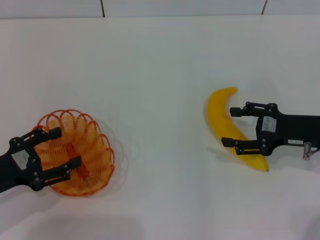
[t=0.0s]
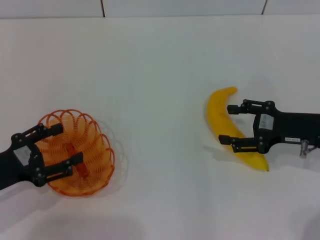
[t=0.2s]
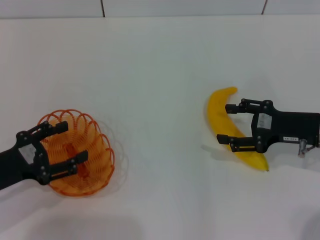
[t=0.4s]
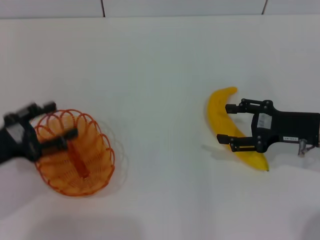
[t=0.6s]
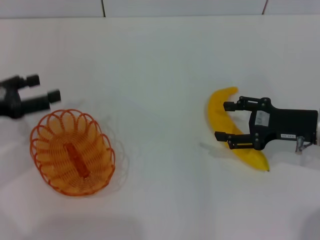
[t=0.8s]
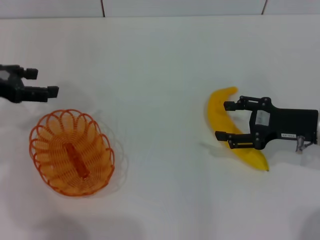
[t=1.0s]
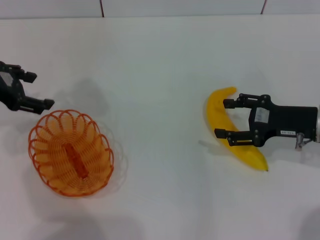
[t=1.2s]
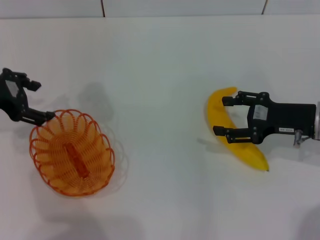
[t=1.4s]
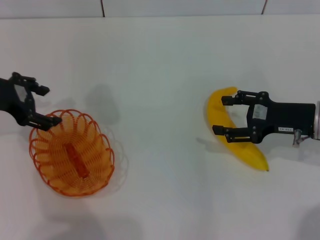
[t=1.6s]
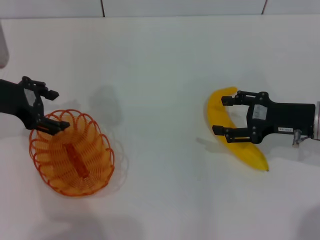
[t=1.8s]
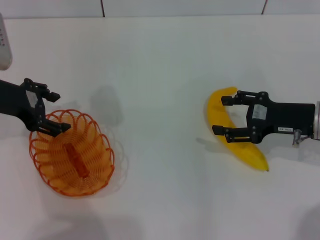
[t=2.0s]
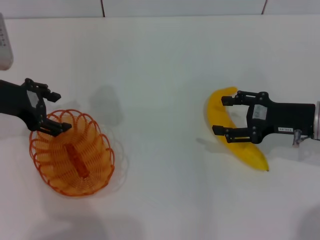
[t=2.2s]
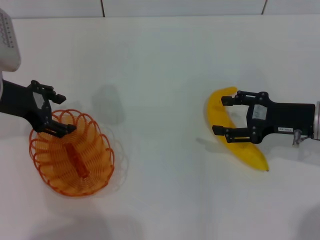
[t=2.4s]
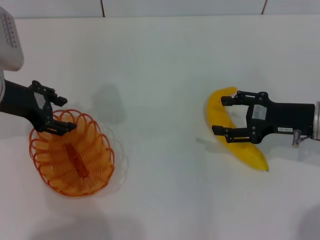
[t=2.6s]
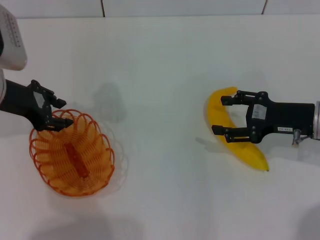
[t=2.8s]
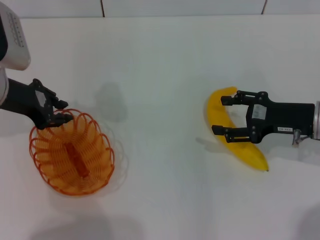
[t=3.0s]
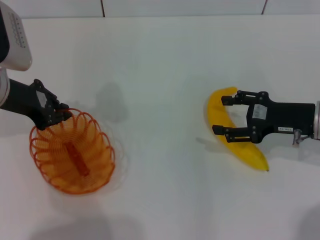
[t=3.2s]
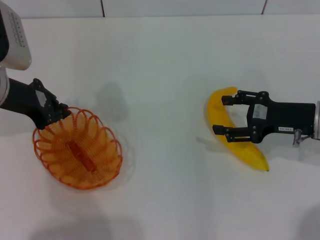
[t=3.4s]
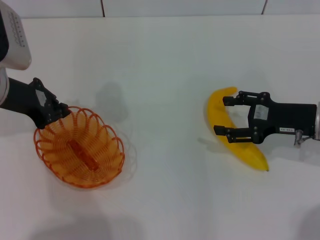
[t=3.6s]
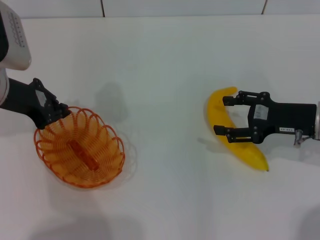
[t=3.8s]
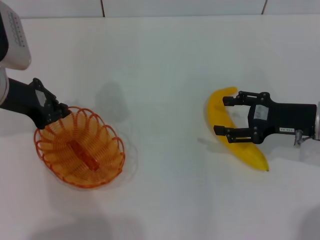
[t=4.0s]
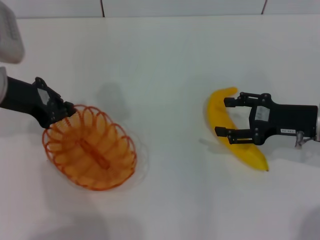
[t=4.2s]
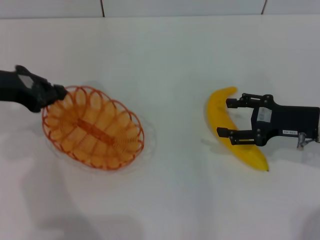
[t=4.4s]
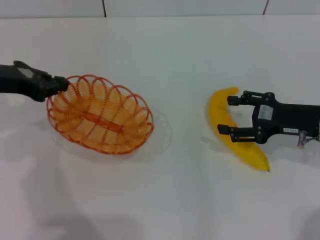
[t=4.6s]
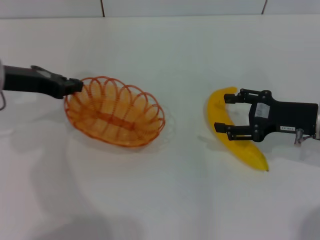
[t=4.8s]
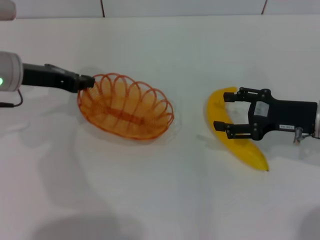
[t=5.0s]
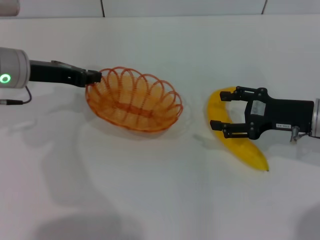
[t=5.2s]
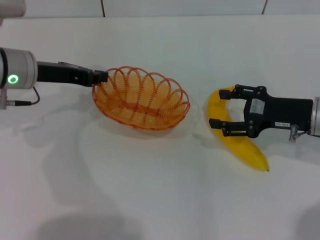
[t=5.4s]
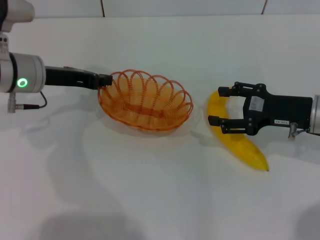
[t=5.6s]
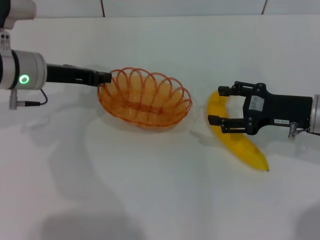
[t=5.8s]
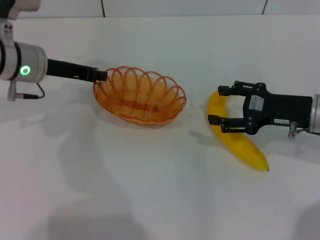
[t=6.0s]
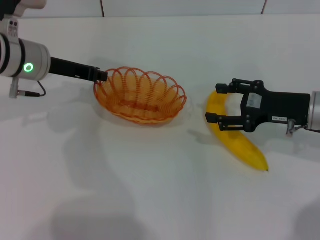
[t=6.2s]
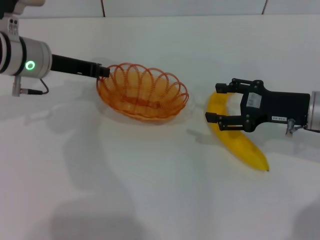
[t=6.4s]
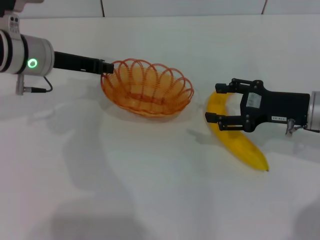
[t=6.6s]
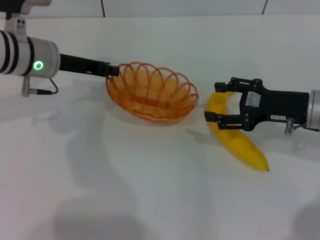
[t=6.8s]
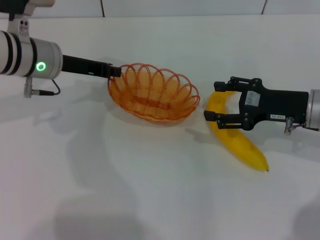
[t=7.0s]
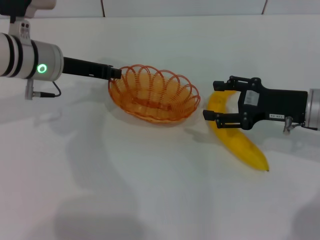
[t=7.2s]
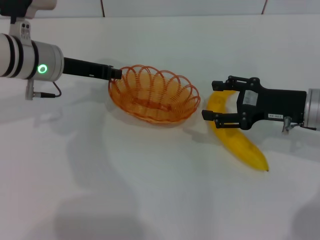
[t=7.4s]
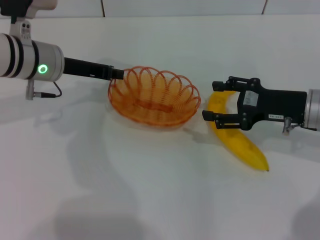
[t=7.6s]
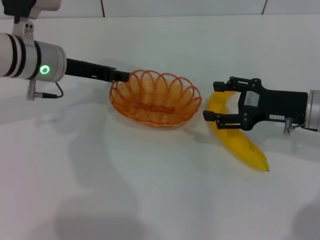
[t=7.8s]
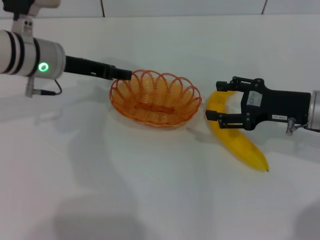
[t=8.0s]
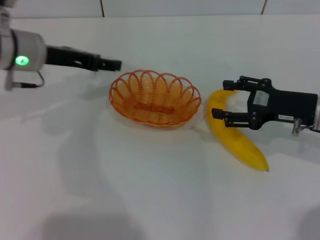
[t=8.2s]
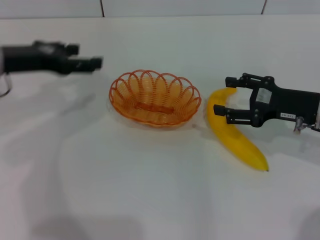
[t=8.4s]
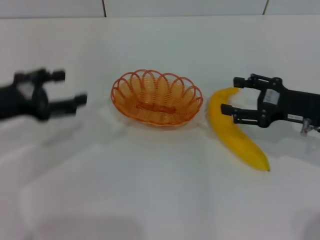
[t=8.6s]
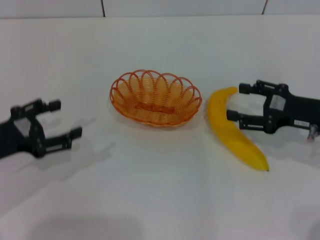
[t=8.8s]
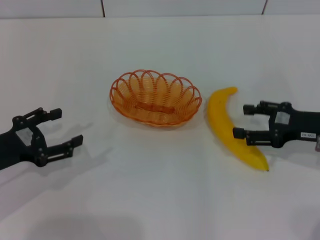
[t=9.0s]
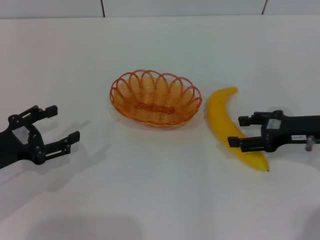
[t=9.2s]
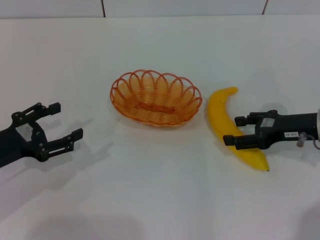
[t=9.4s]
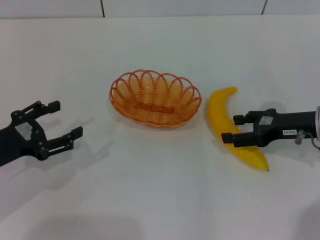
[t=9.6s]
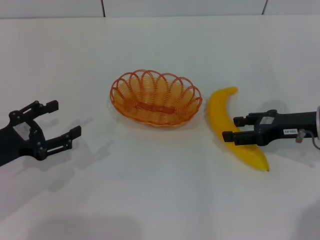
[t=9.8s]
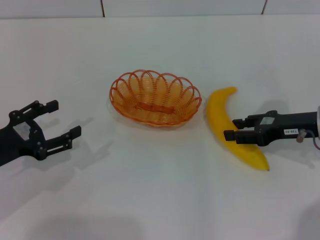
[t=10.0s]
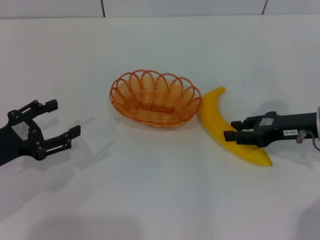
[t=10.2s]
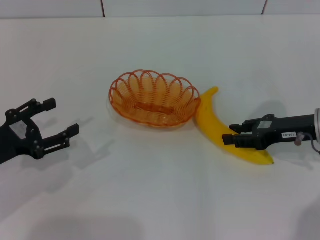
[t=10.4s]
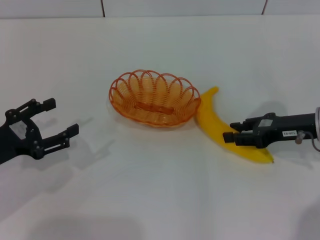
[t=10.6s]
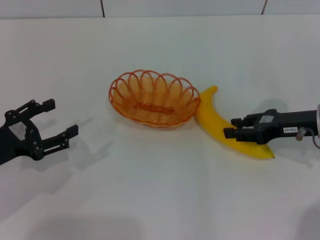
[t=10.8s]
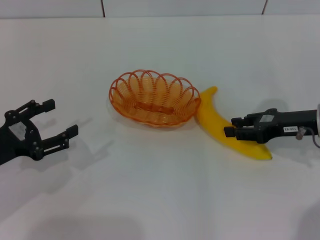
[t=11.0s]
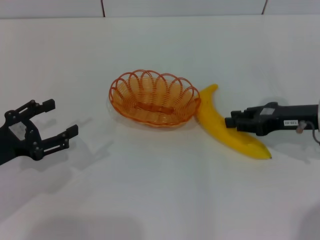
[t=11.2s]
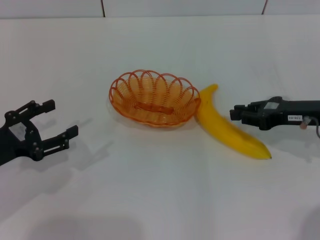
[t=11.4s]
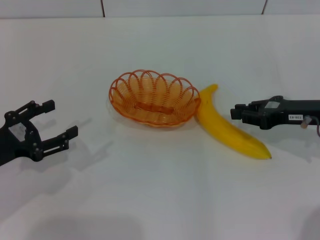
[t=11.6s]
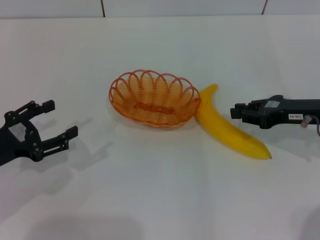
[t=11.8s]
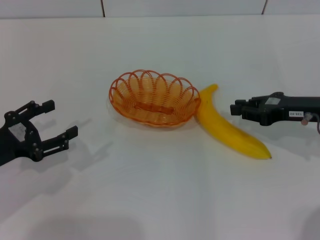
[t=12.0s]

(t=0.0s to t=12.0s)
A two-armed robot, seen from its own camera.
Step, t=0.0s - t=4.2s: Pick up the basket with the left gripper.
Step, t=4.4s - t=8.4s: Place the basket in the center of view with the left gripper.
t=0.0s - t=1.6s: The left gripper is displaced forward and upward by roughly 15 cm.
t=1.6s - t=3.0s: The left gripper closes.
t=3.0s - t=4.4s: The left gripper closes its fingers.
t=4.4s - t=6.0s: The left gripper heads to the right and forward, covering about 10 cm.
t=6.0s - t=7.6s: The grippers stay close to where they were, moving slightly.
t=7.6s - t=9.0s: The left gripper goes about 20 cm backward and to the left, and opens its fingers; the right gripper moves some 5 cm.
t=9.0s - t=10.4s: The right gripper closes up.
t=10.4s - t=12.0s: There are only small adjustments of the grippers.

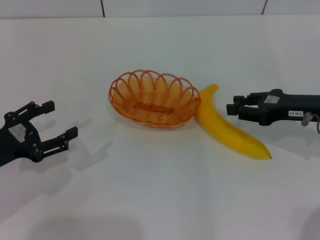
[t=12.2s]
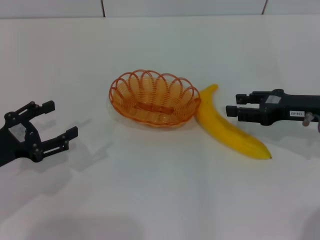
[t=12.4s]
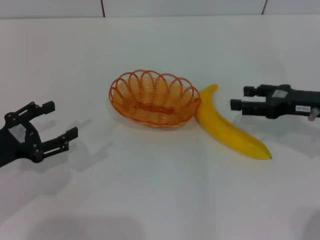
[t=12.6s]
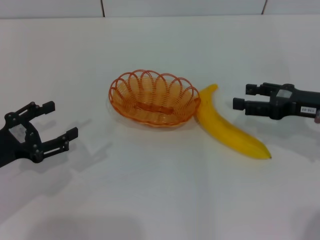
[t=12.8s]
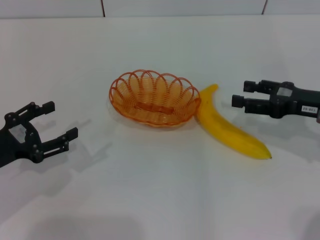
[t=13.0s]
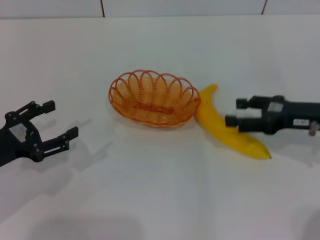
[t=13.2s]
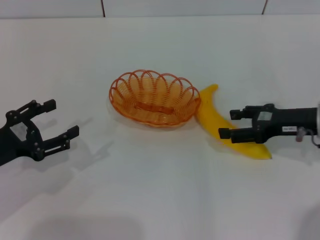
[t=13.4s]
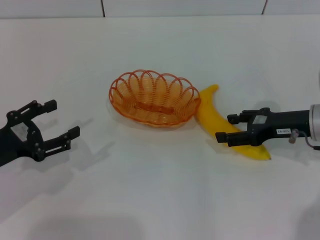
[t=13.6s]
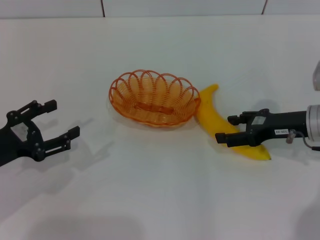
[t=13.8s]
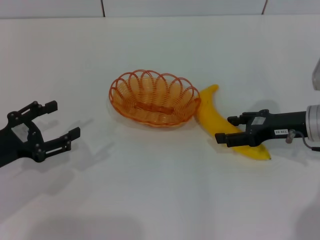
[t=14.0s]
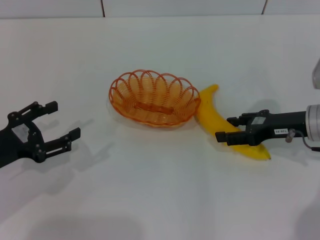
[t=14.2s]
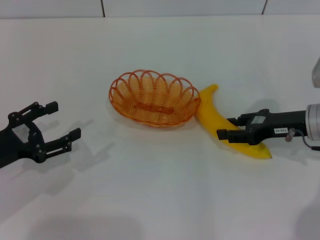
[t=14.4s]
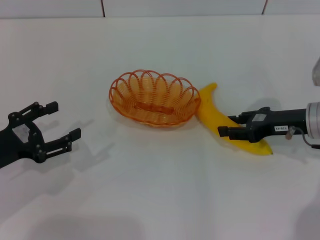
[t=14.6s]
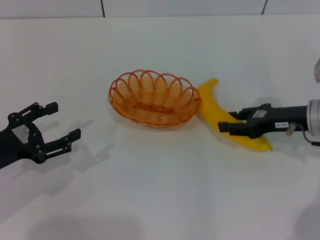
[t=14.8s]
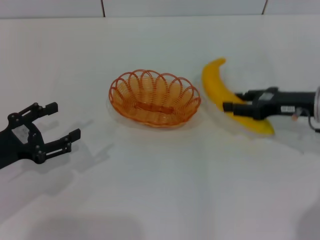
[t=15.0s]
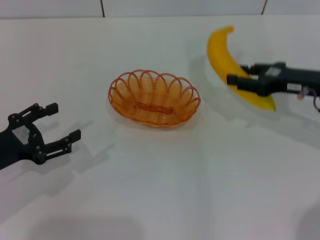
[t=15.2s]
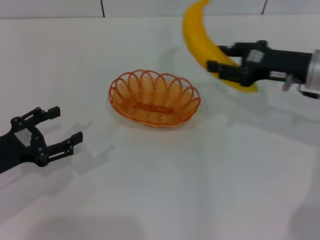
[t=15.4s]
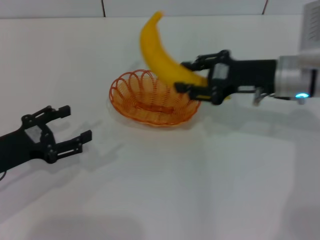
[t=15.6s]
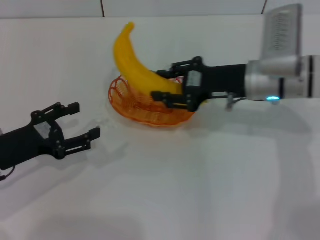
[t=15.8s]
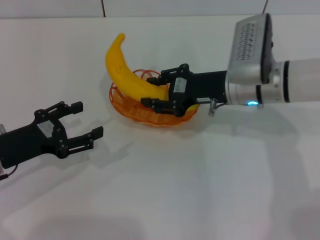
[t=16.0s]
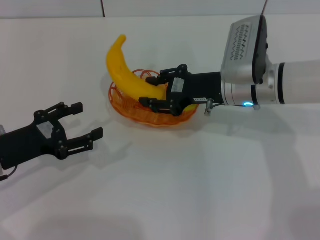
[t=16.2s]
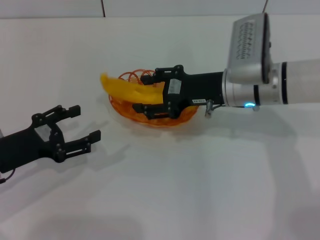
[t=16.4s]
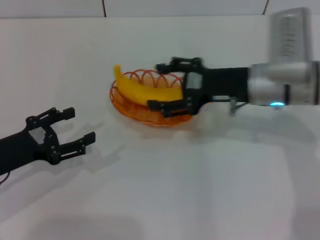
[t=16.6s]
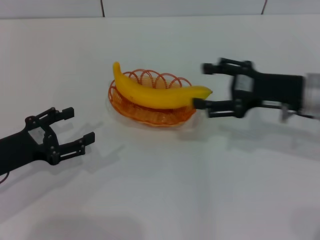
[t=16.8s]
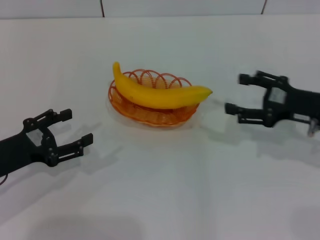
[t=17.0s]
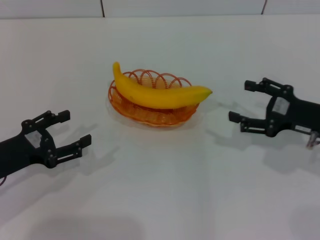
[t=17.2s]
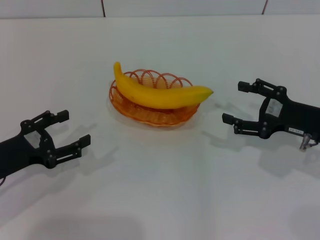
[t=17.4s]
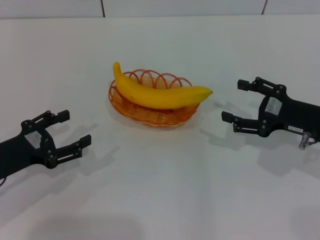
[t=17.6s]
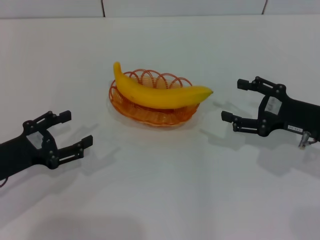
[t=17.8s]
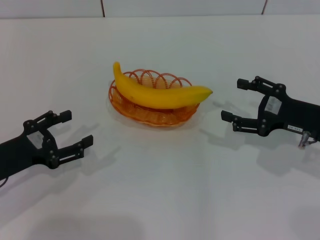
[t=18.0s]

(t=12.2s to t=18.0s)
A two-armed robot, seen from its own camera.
Step, t=12.2s - t=15.2s: Pick up the banana with the right gripper.
Step, t=15.4s - t=16.8s: Place the banana into the basket with the right gripper.
t=12.2s - t=13.6s: The right gripper opens.
t=13.6s - t=15.0s: The right gripper closes its fingers.
t=15.0s - t=16.6s: The right gripper heads to the left, covering roughly 10 cm, and opens.
t=16.6s - t=18.0s: The right gripper moves to the right, backward and downward, some 15 cm.
